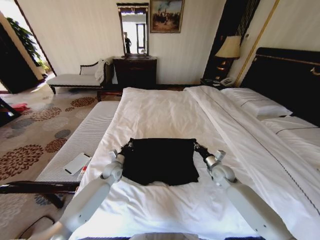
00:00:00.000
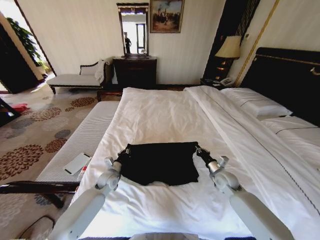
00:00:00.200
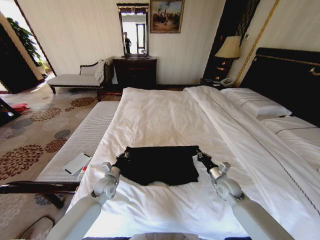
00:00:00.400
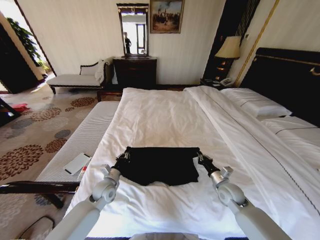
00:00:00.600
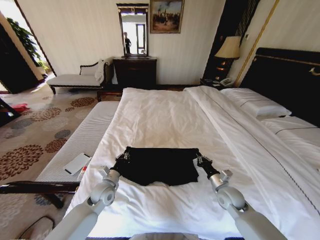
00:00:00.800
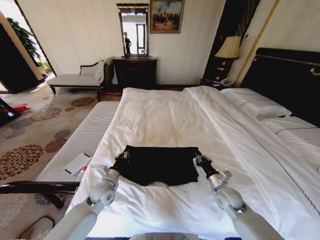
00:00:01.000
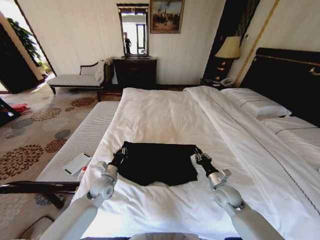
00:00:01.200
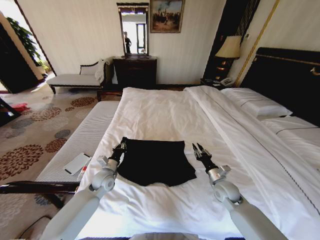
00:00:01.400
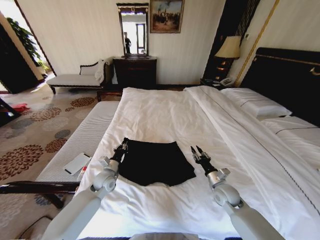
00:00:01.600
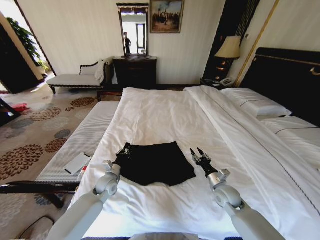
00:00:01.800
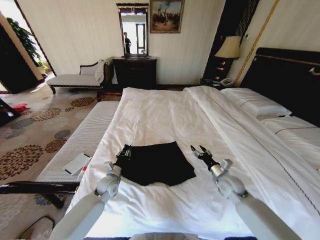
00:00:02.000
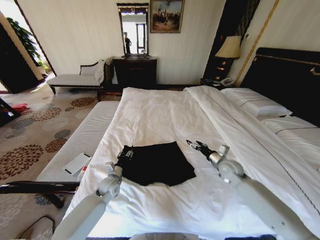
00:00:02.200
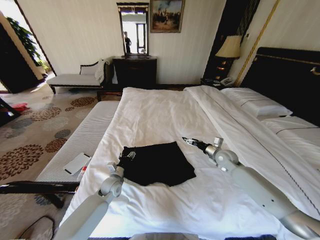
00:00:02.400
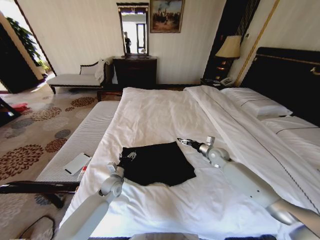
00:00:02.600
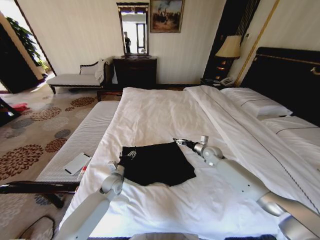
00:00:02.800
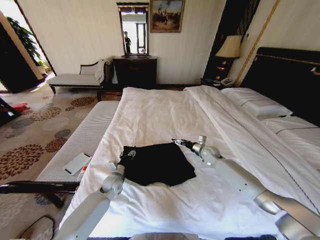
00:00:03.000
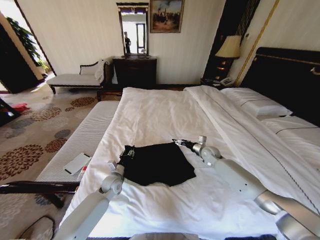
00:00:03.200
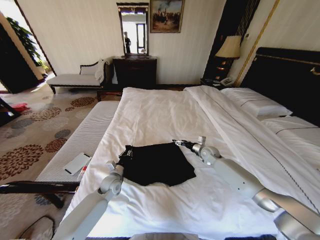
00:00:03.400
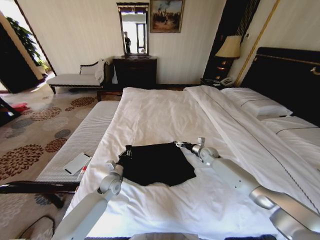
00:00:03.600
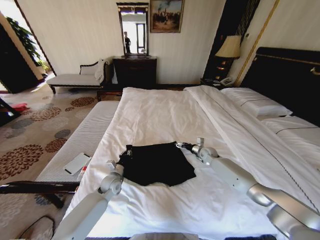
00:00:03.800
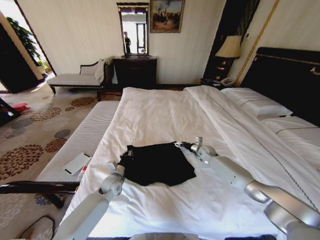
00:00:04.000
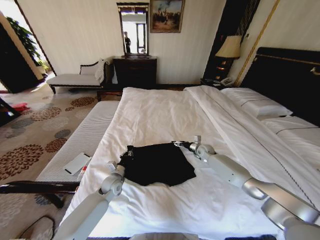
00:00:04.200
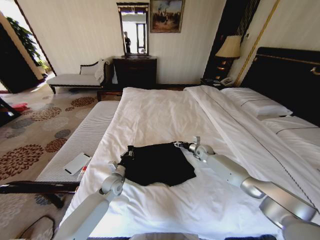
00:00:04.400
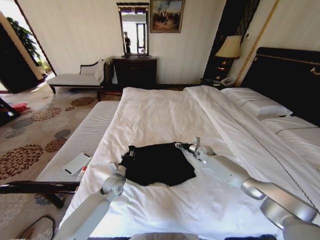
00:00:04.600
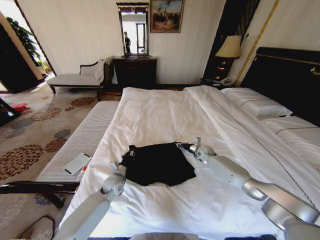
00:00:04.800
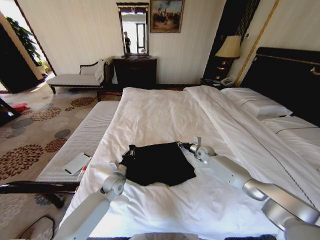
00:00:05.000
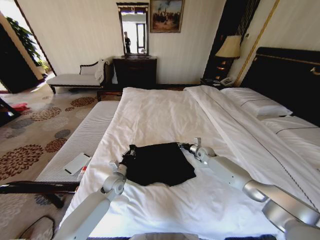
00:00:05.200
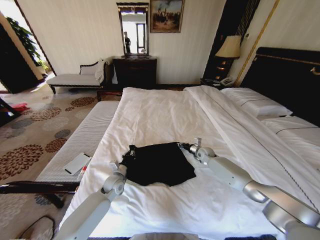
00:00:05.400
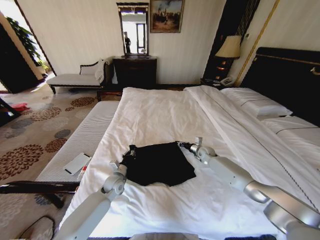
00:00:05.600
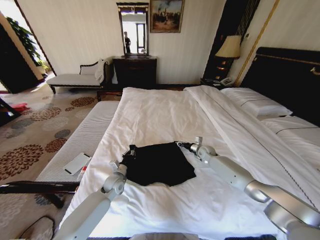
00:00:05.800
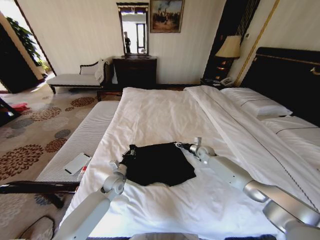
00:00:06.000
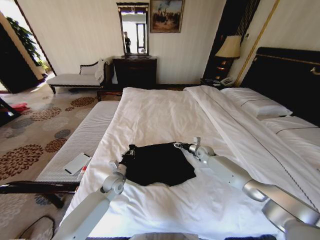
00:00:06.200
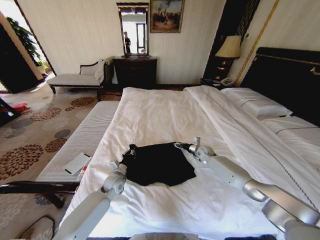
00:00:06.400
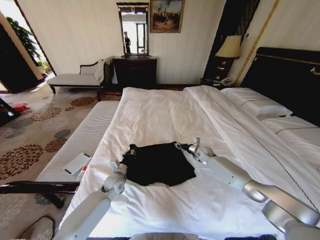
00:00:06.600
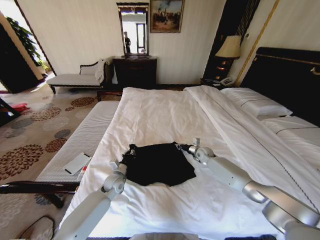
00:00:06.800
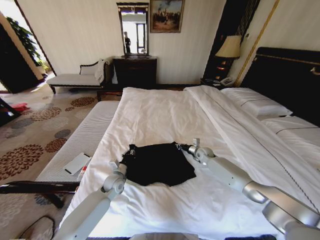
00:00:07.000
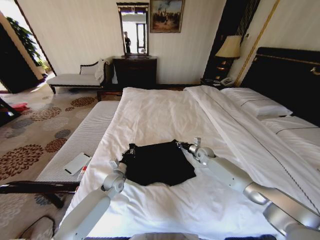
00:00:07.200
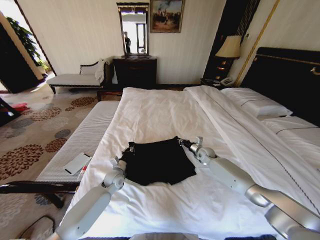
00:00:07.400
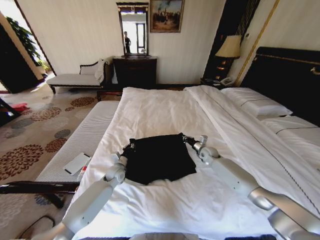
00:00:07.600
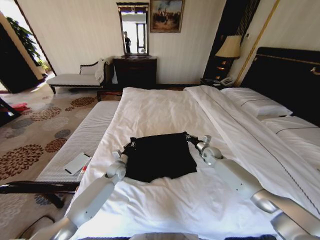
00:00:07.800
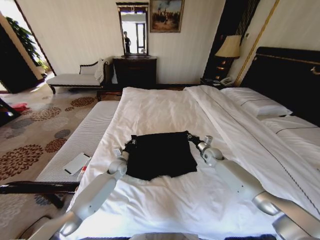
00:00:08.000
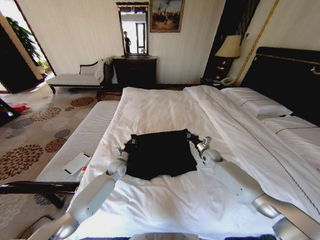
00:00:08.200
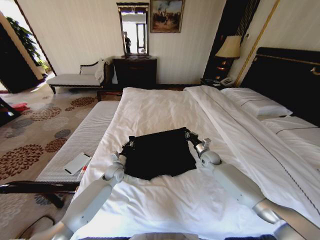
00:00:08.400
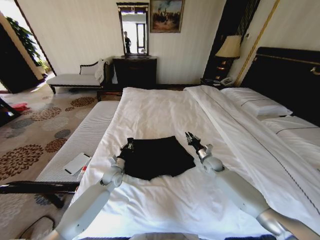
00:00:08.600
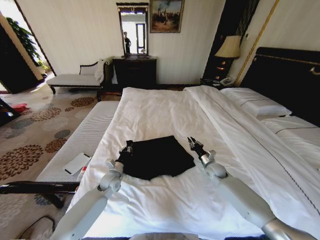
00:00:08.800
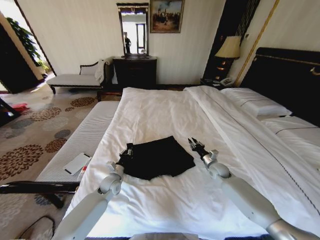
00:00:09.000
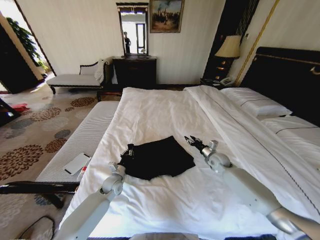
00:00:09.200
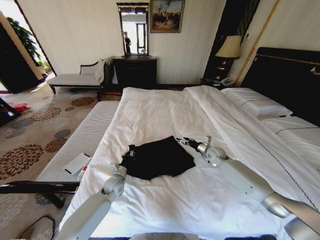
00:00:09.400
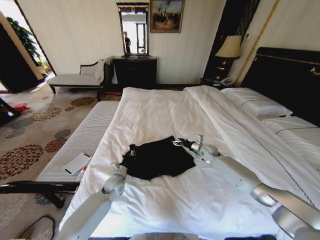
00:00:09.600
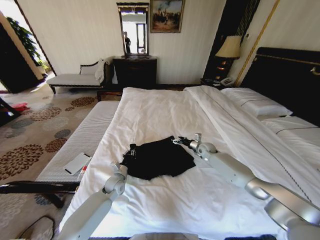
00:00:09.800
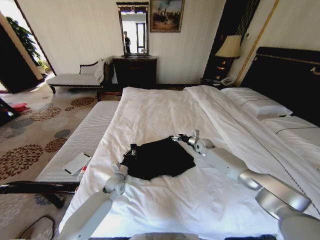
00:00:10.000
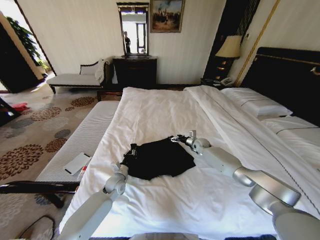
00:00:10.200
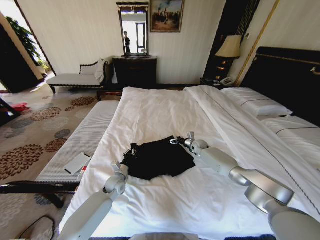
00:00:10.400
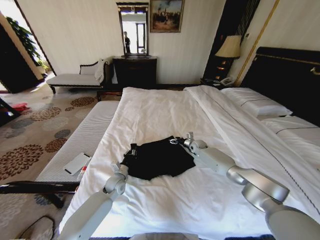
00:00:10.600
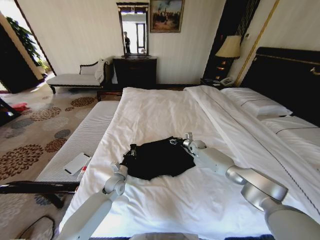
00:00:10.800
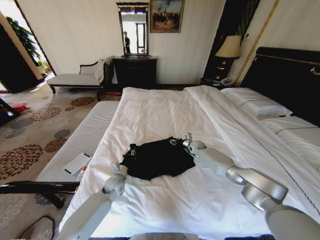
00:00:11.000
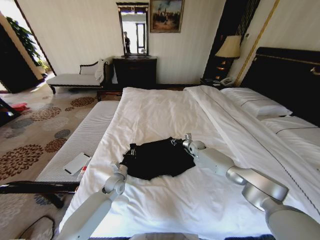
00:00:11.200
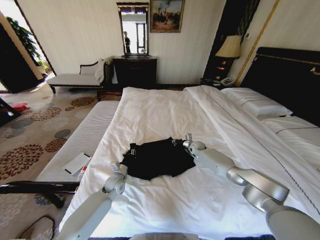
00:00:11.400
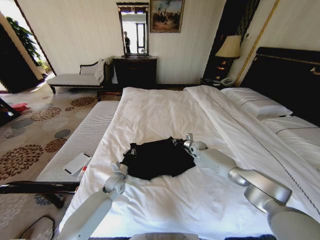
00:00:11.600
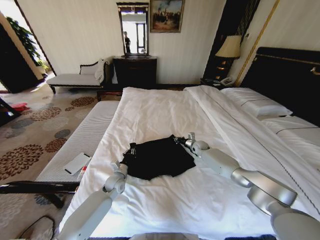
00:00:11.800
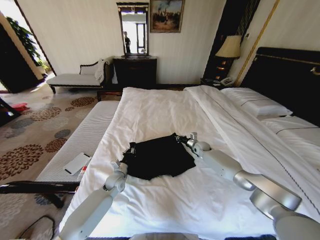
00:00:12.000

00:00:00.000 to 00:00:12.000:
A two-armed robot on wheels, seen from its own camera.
Task of the whole recording: Fold the clothes on the bed.
00:00:00.000 to 00:00:01.600: The two grippers go about 10 cm backward. The right gripper opens up.
00:00:01.600 to 00:00:03.000: The left gripper moves about 5 cm, and opens its fingers. The right gripper is displaced forward by about 20 cm, and opens its fingers.
00:00:03.000 to 00:00:04.400: The left gripper closes its fingers; the right gripper shifts by approximately 5 cm.
00:00:04.400 to 00:00:06.000: The right gripper closes and opens again.
00:00:06.000 to 00:00:07.600: The right gripper closes.
00:00:07.600 to 00:00:09.000: The left gripper moves some 5 cm. Meanwhile the right gripper shifts approximately 10 cm backward.
00:00:09.000 to 00:00:10.400: The right gripper goes approximately 15 cm forward, and opens.
00:00:10.400 to 00:00:12.000: The right gripper closes.

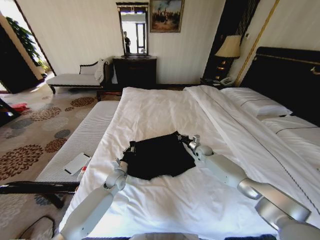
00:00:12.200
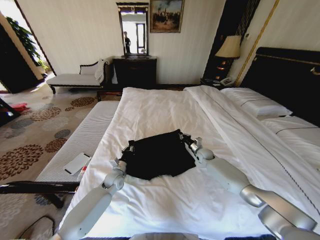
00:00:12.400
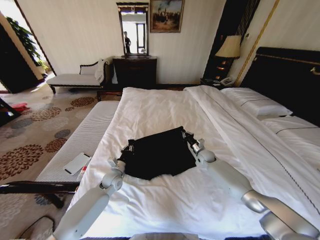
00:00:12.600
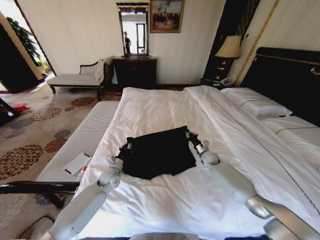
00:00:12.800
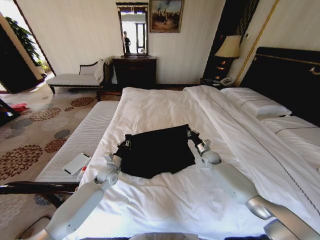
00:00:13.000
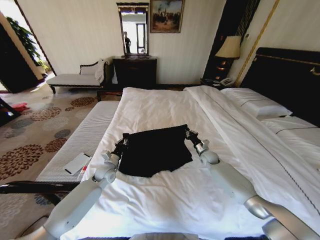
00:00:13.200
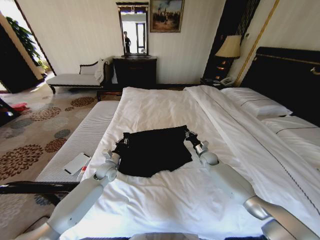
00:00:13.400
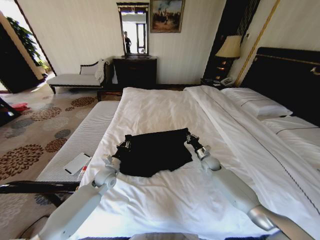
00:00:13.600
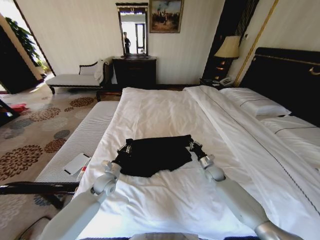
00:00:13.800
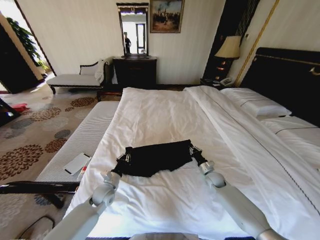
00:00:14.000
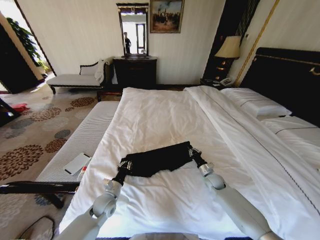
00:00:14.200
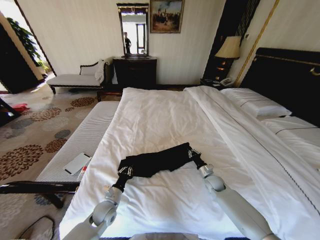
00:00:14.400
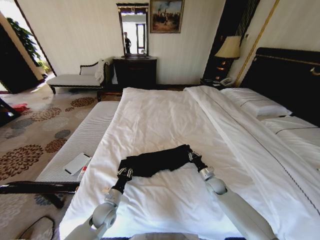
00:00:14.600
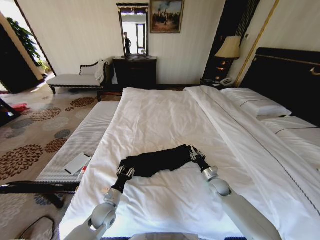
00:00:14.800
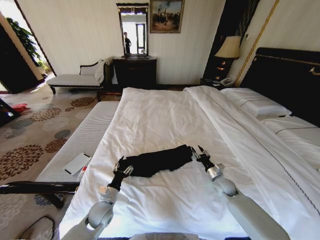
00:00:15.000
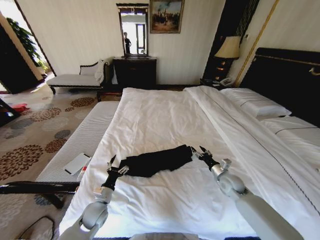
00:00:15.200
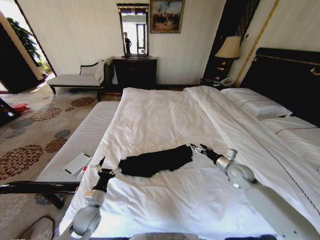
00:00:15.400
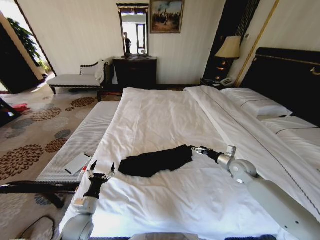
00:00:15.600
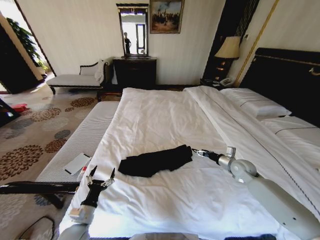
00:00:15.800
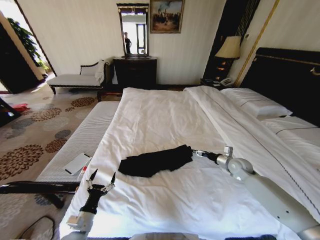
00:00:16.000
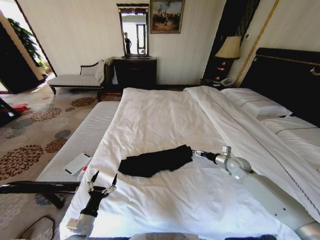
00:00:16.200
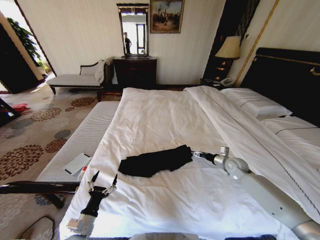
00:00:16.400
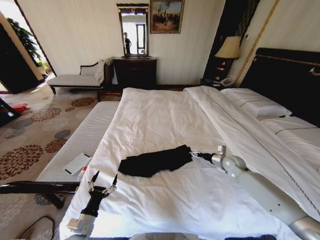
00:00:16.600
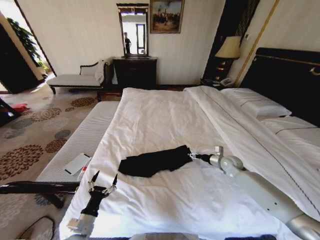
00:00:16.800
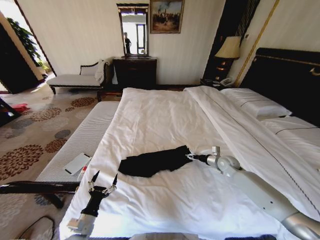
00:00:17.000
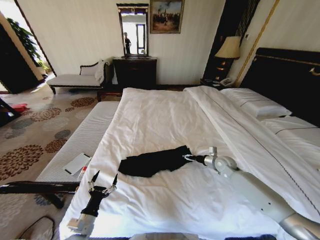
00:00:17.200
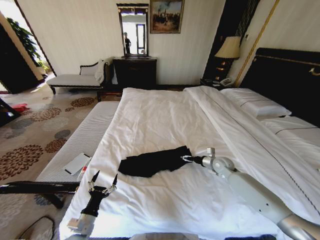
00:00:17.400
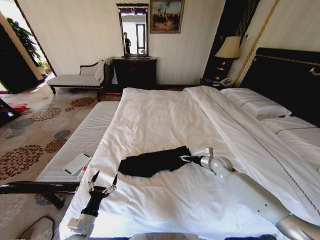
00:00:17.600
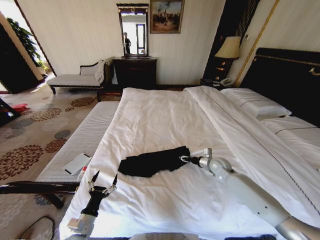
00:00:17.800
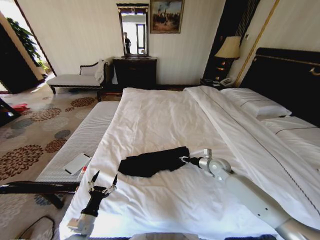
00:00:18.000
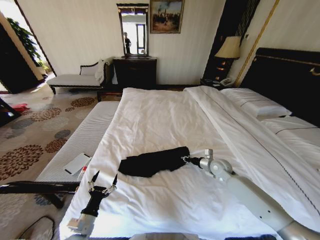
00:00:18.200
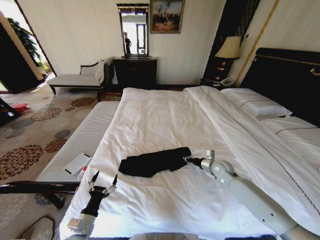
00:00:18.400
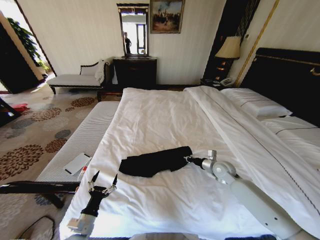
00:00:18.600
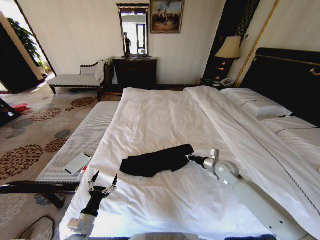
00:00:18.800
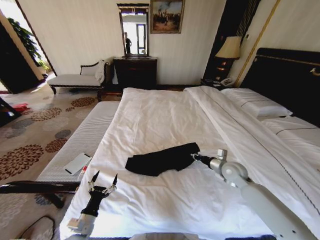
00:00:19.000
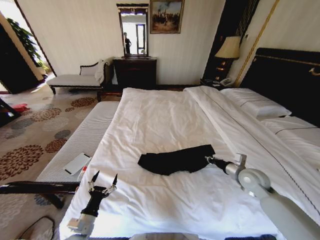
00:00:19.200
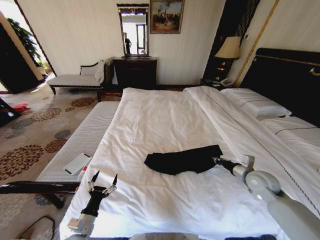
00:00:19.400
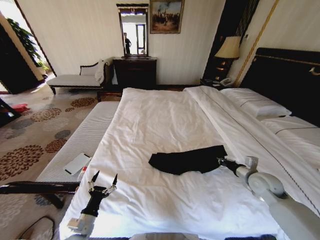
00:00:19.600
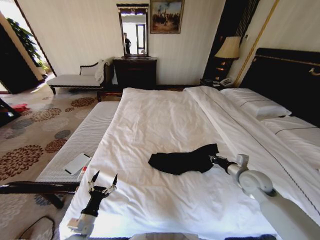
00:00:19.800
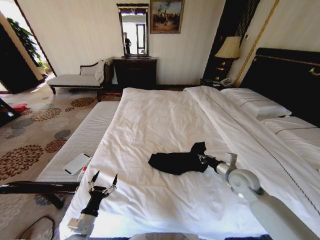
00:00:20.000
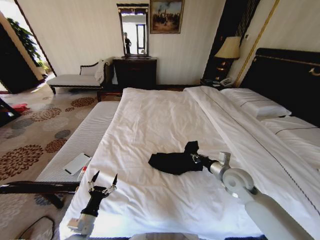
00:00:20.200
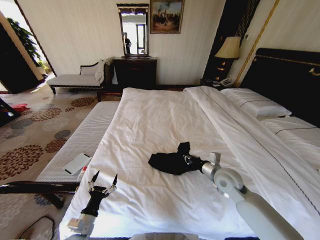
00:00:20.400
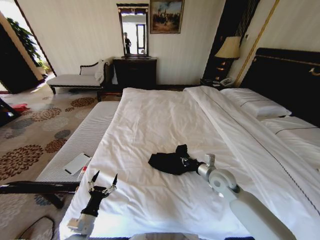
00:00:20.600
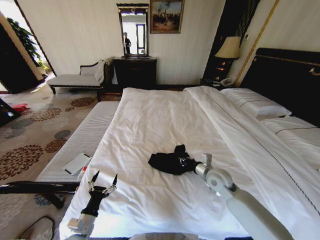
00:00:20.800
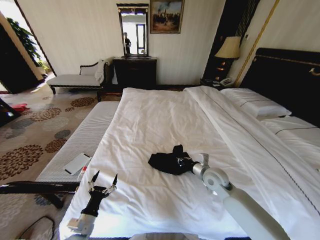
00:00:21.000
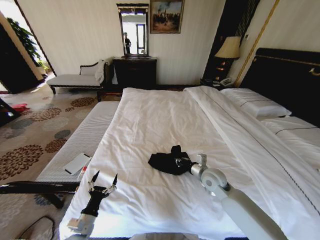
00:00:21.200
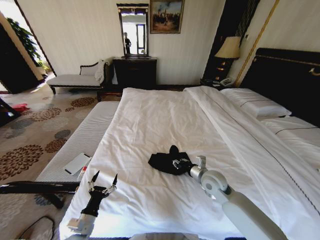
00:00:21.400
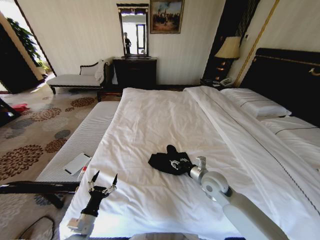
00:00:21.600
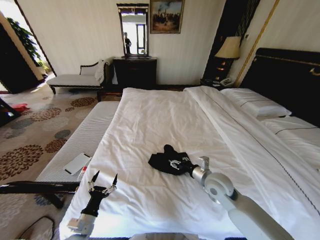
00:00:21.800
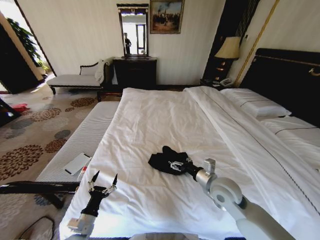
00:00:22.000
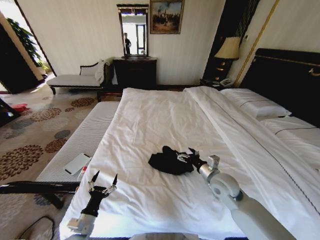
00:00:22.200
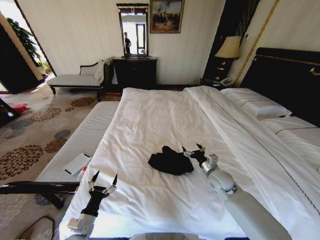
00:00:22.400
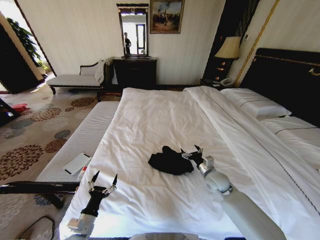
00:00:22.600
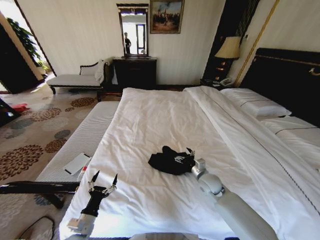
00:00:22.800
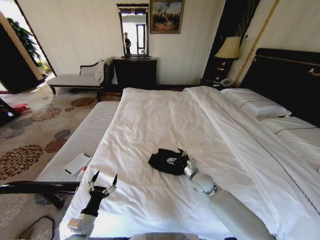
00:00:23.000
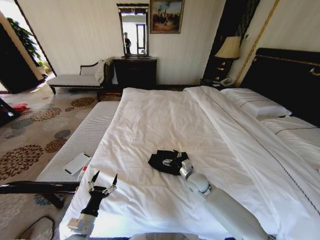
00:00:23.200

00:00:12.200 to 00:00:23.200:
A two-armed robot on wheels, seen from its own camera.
Task of the whole recording: Fold the clothes on the bed.
00:00:12.200 to 00:00:13.800: The left gripper changes place by roughly 5 cm. Meanwhile the right gripper shifts about 10 cm backward.
00:00:13.800 to 00:00:15.400: The right gripper goes some 15 cm upward, backward and to the right, and opens up. Meanwhile the left gripper goes approximately 15 cm backward, and opens.
00:00:15.400 to 00:00:17.000: The left gripper moves backward, some 10 cm. Meanwhile the right gripper goes some 5 cm forward.
00:00:17.000 to 00:00:18.400: The right gripper travels to the left by about 5 cm, and closes up.
00:00:18.400 to 00:00:20.000: The right gripper goes roughly 10 cm backward and upward.
00:00:20.000 to 00:00:21.600: The right gripper moves to the left, some 10 cm, and opens.
00:00:21.600 to 00:00:23.200: The right gripper travels downward by about 10 cm, and opens.
